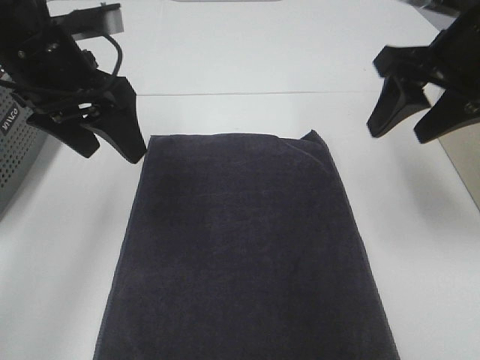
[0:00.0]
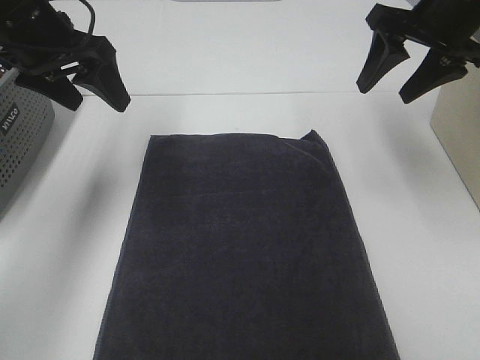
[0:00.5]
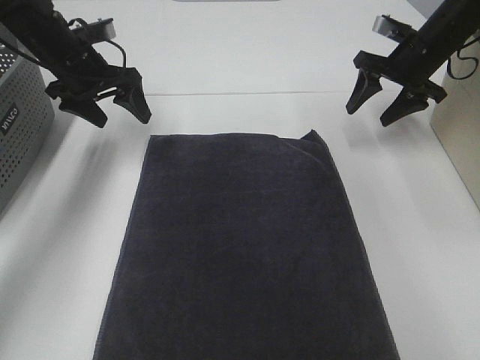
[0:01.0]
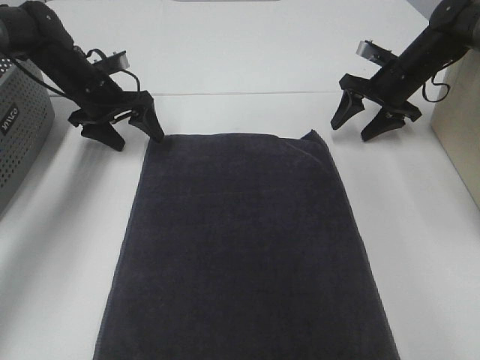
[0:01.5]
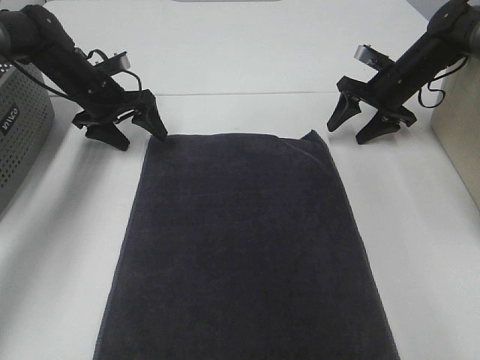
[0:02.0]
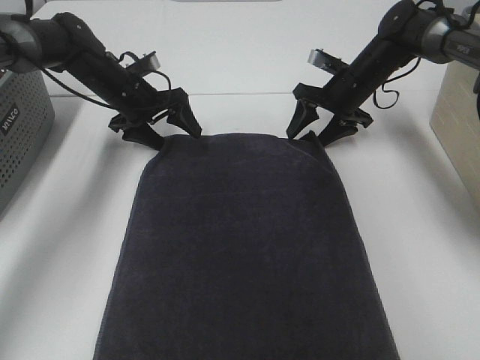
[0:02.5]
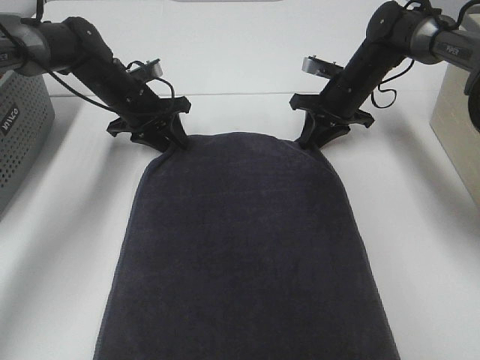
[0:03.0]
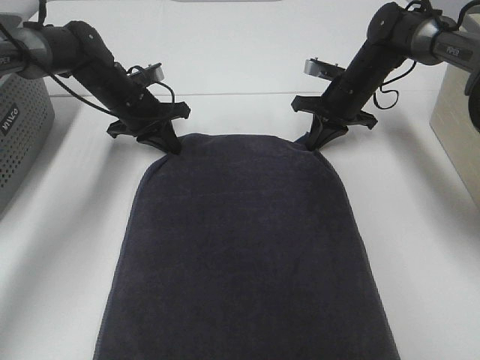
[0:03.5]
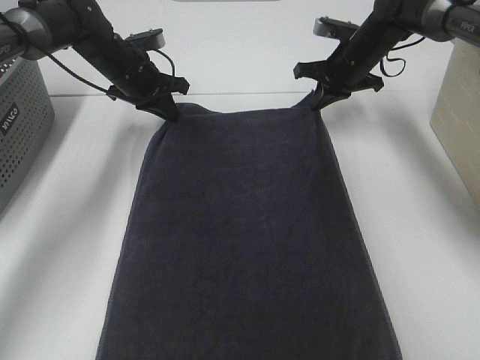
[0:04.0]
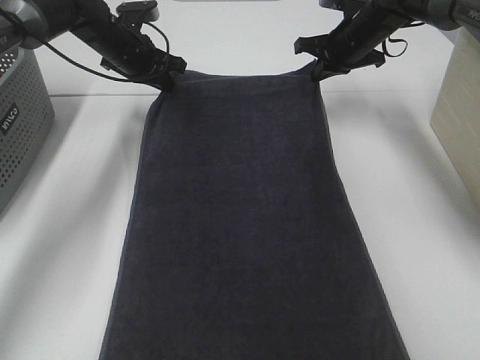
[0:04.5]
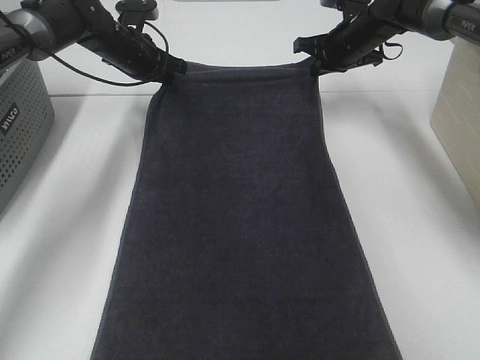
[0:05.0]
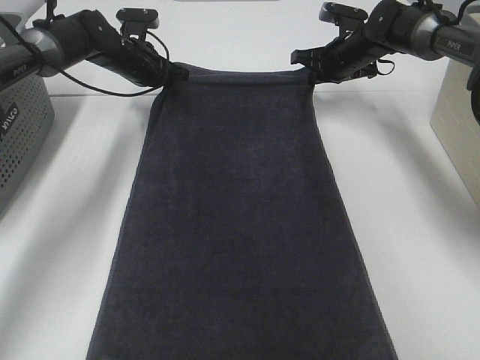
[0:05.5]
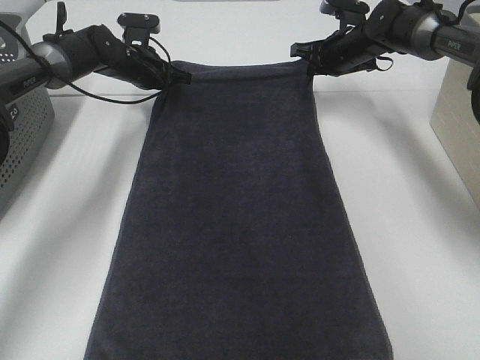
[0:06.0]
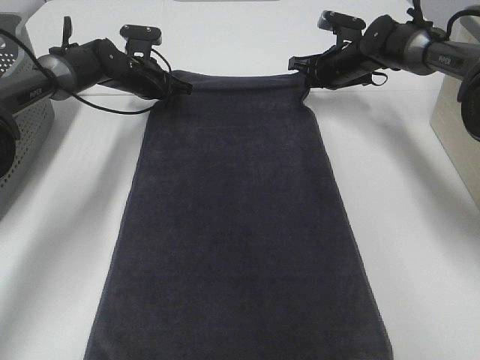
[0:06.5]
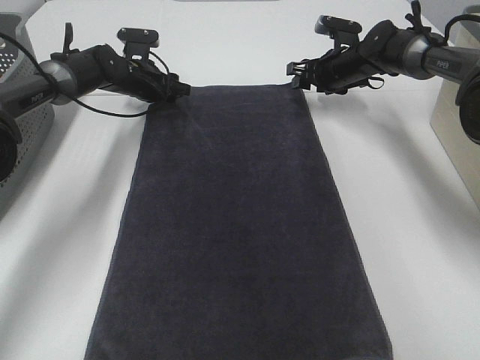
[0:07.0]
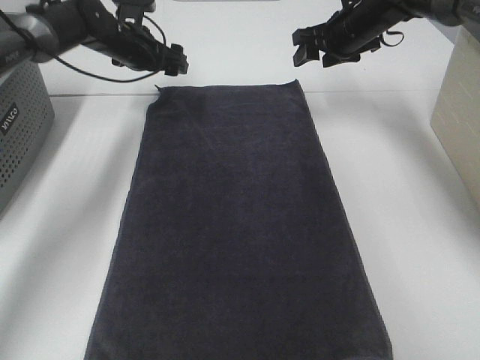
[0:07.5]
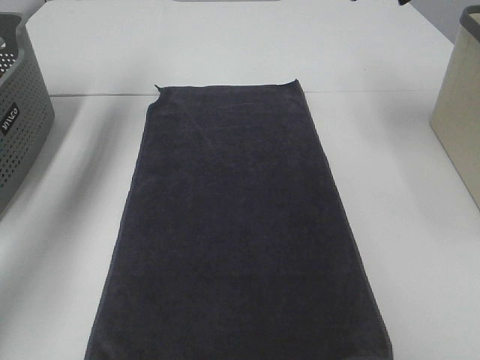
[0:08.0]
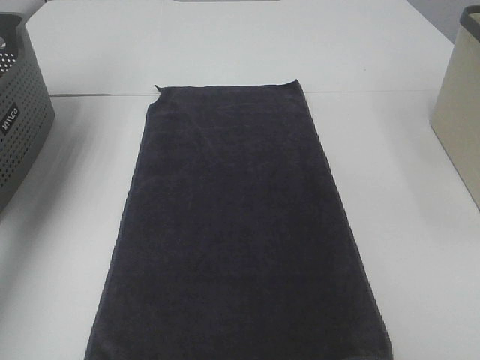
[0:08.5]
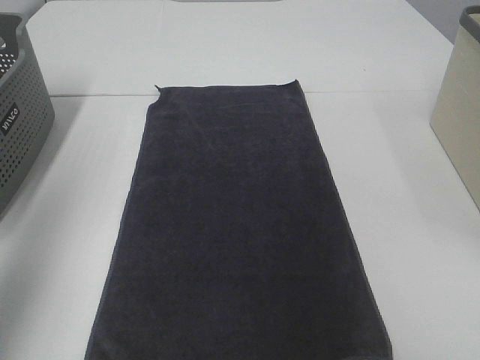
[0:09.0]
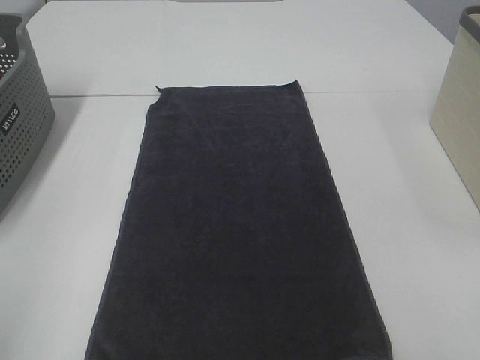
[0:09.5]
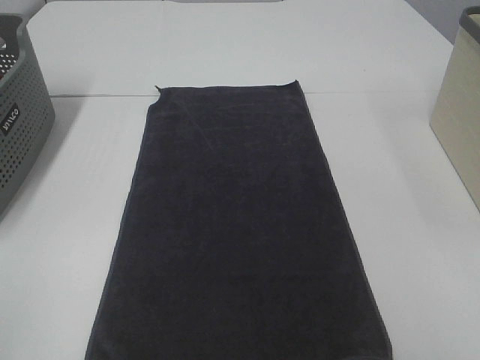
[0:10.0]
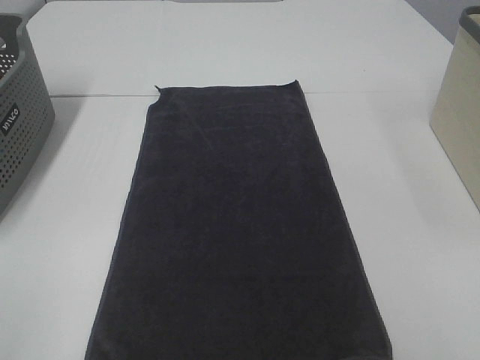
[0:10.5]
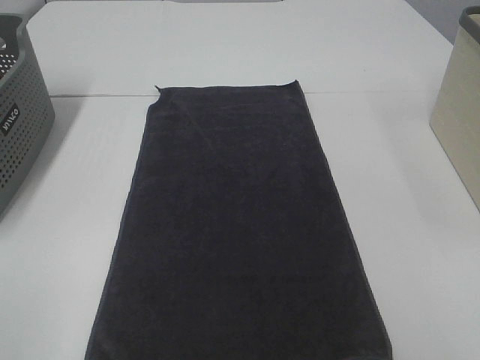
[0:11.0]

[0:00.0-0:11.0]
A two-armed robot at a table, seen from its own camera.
Task of the whole recording: Remove the towel and place it.
0:00.0 to 0:02.0: The two grippers go approximately 25 cm forward and downward.
0:02.0 to 0:03.5: The right gripper travels to the left by approximately 10 cm, and closes up. Meanwhile the left gripper goes approximately 5 cm to the right, and closes its fingers.
0:03.5 to 0:05.5: Both grippers move forward, about 5 cm.
0:05.5 to 0:07.5: The left gripper opens its fingers, while the right gripper shifts roughly 5 cm upward, and opens.
0:07.5 to 0:09.0: The grippers both shift backward and upward by roughly 50 cm.
0:09.0 to 0:11.0: The left gripper moves backward and downward, about 20 cm.

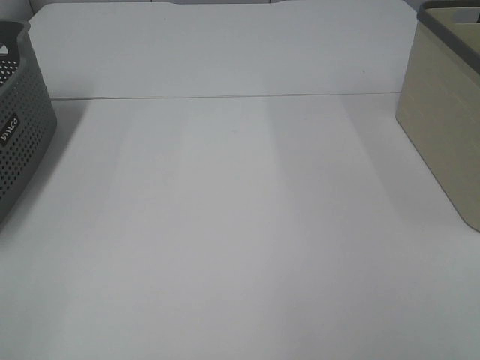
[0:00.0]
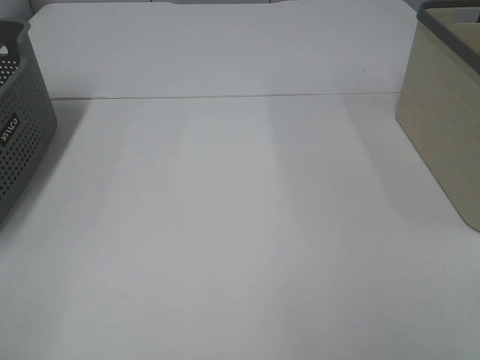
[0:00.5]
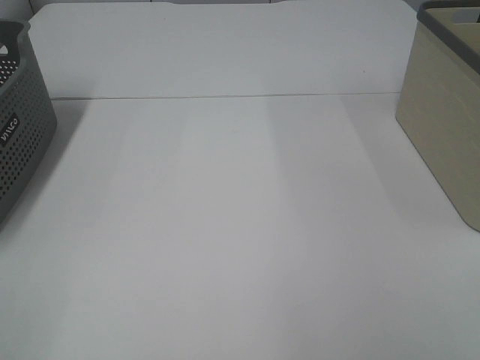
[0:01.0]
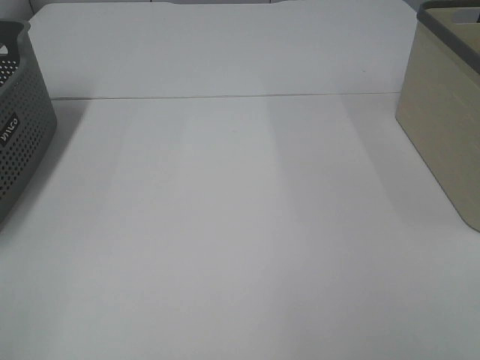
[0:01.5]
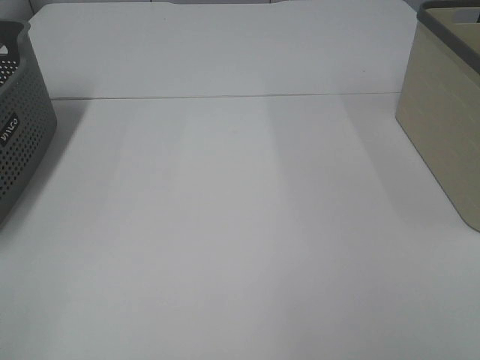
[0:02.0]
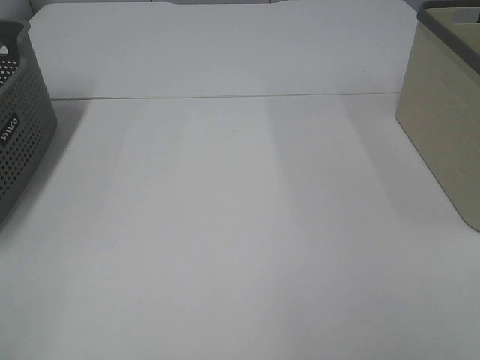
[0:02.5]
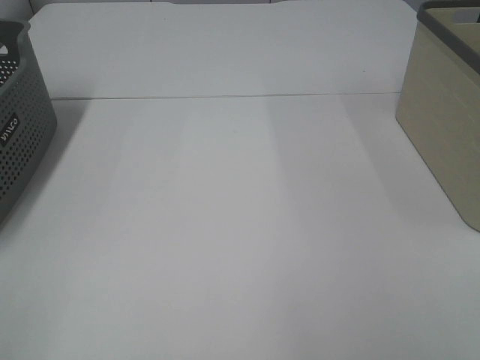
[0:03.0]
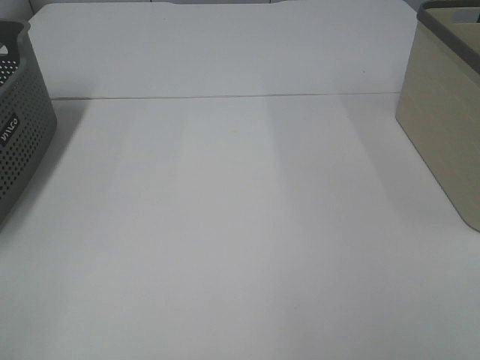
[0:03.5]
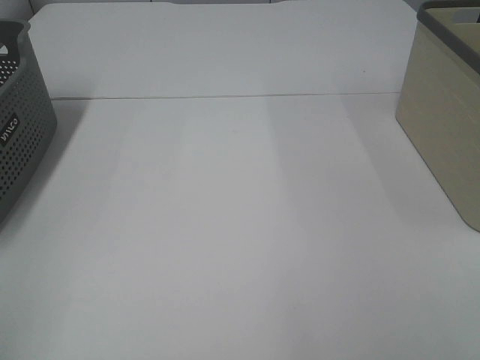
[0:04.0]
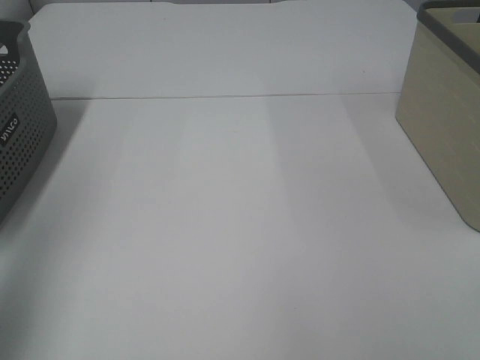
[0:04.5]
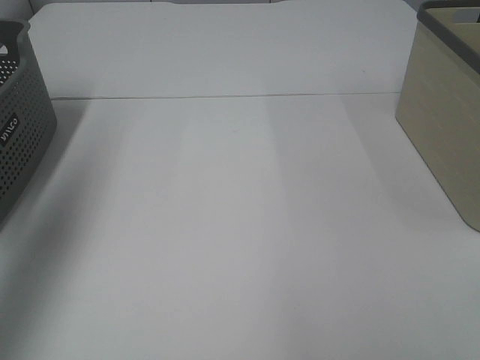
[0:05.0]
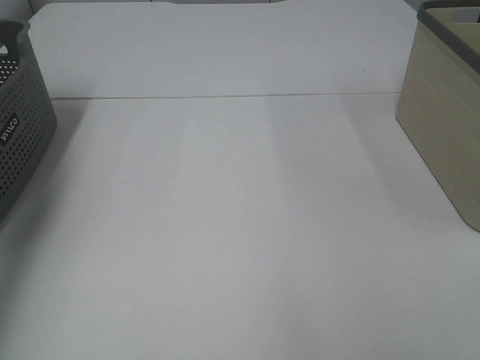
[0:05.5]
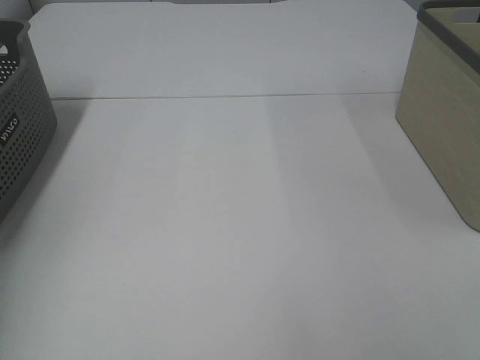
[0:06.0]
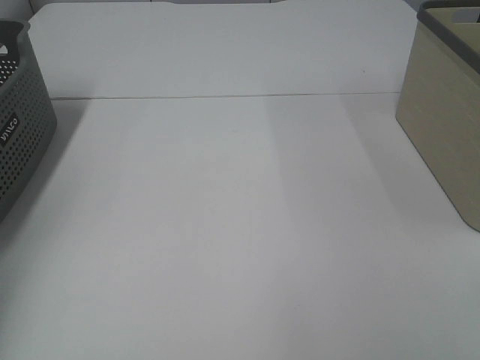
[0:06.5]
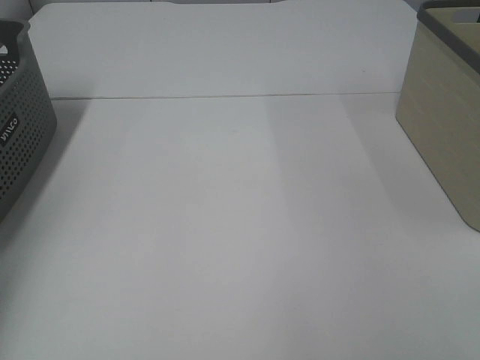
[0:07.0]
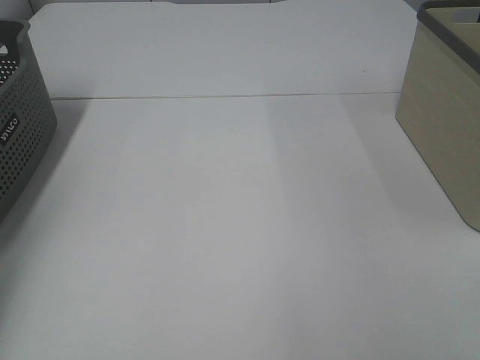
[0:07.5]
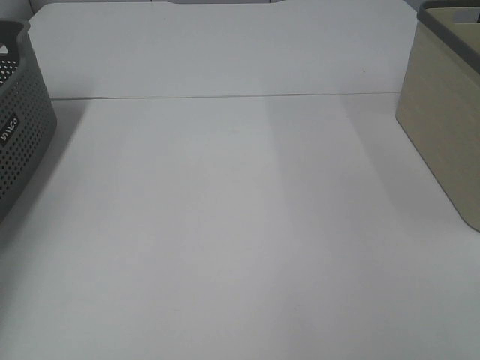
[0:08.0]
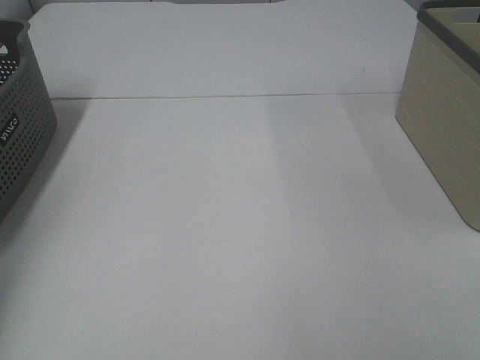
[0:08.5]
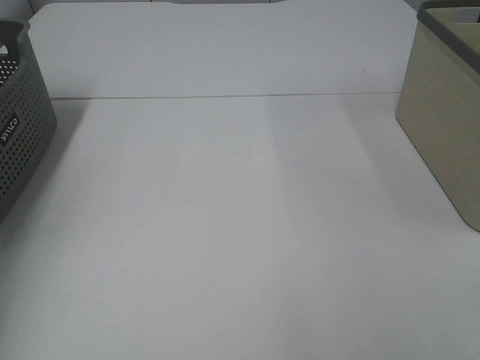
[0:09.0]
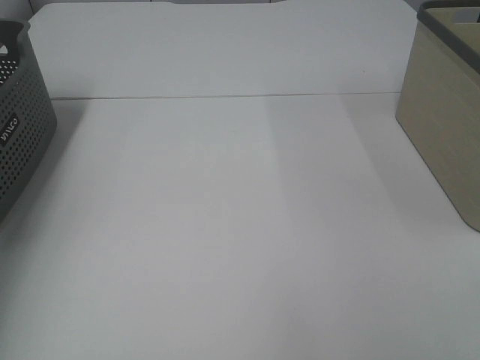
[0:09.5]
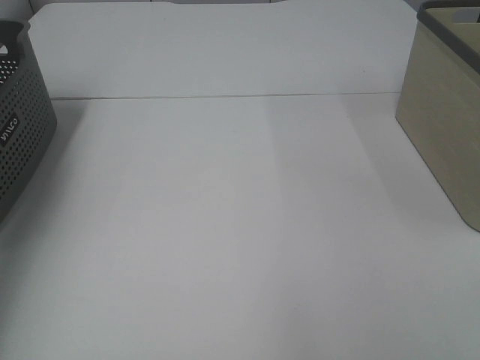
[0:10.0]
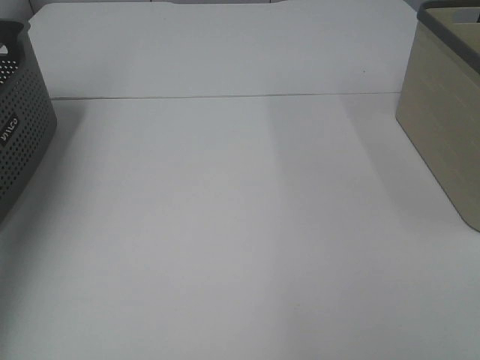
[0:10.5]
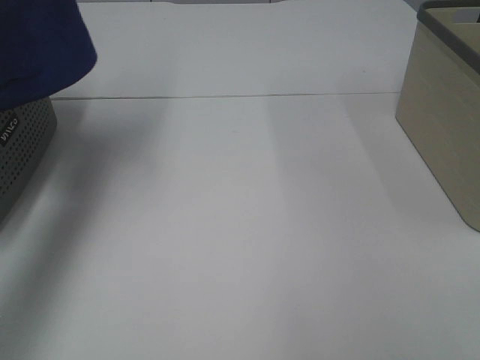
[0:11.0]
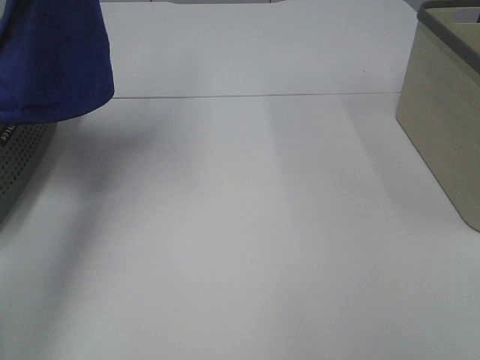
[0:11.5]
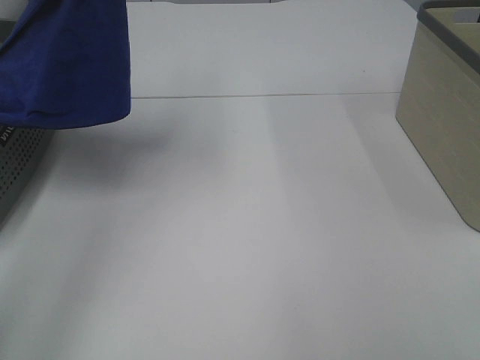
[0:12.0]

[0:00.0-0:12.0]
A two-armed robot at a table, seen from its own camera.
Task of the whole recording: Remove the towel and place it.
0:00.0 to 0:02.0: The two grippers keep their place.
0:04.0 to 0:06.0: The left gripper is displaced forward by about 30 cm.
0:08.0 to 0:10.0: The left gripper heads upward, covering about 25 cm.
0:10.0 to 0:12.0: The left gripper goes approximately 20 cm to the right.

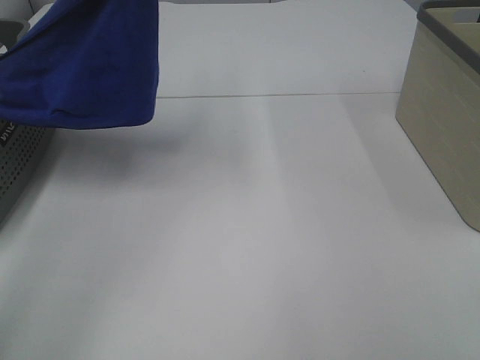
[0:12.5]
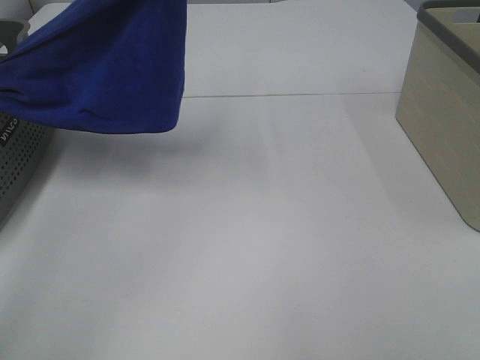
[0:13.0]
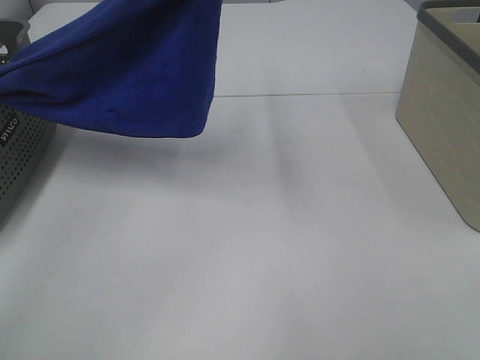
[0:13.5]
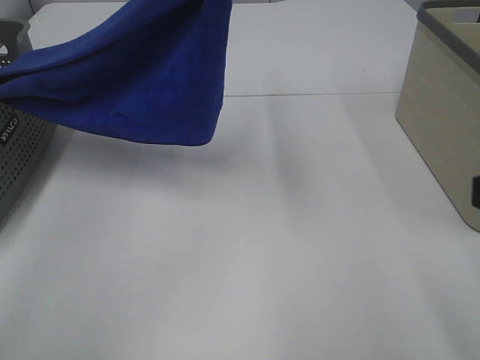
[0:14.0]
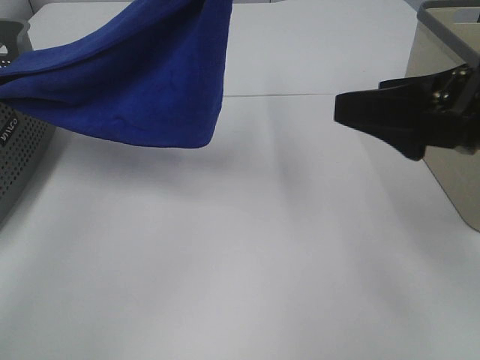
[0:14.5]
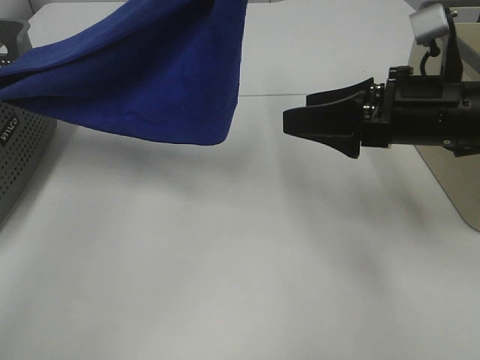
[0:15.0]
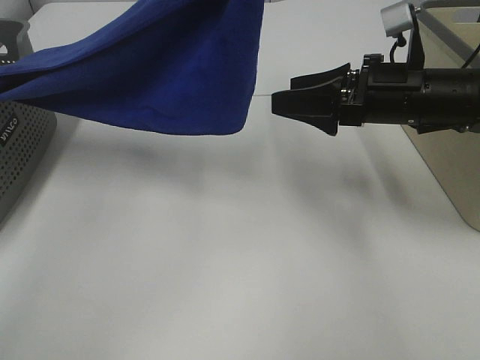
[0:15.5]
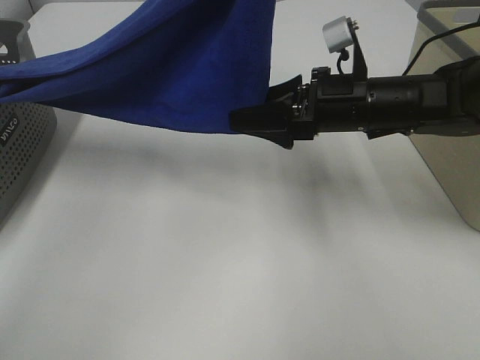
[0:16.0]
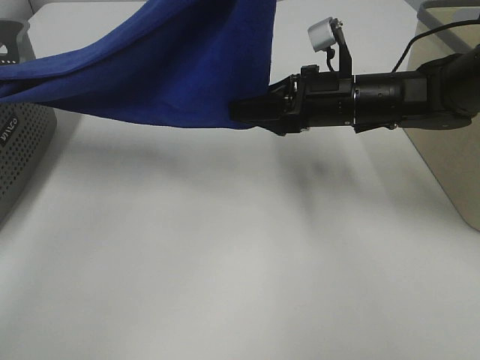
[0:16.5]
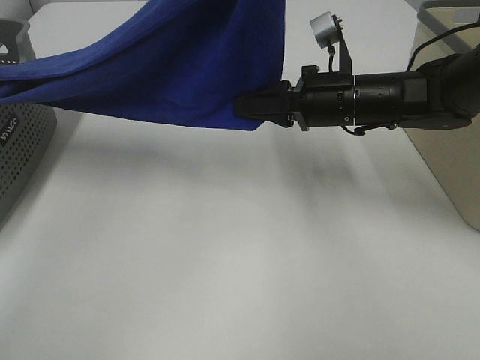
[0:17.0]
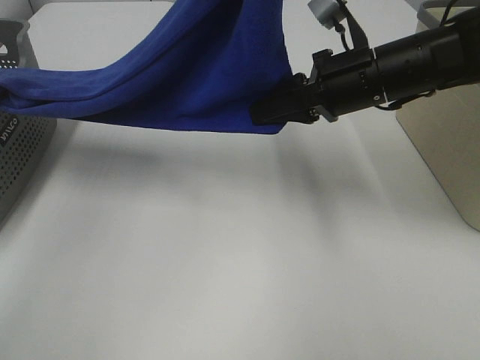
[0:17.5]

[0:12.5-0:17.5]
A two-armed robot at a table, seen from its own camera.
Task of the whole recording: Remove the towel and place it.
Step, 0:12.5 to 0:16.0: Right hand: grab a corner of the blue towel and straighten it.
0:12.5 to 0:15.0: The right gripper is displaced forward by about 30 cm. The left gripper shifts approximately 10 cm to the right.
0:15.0 to 0:17.5: The right gripper travels forward by approximately 5 cm, and closes up.
